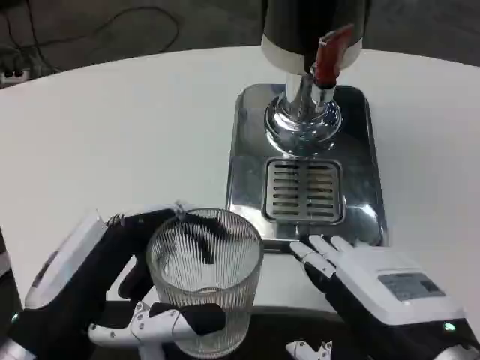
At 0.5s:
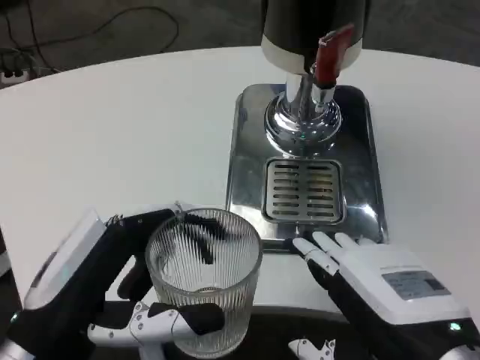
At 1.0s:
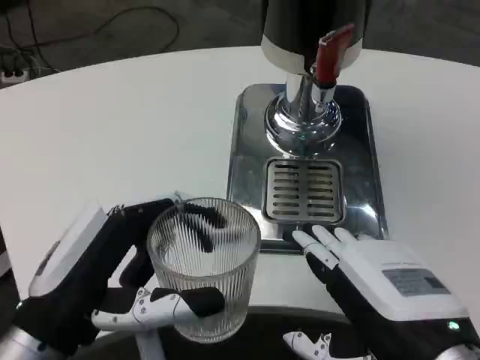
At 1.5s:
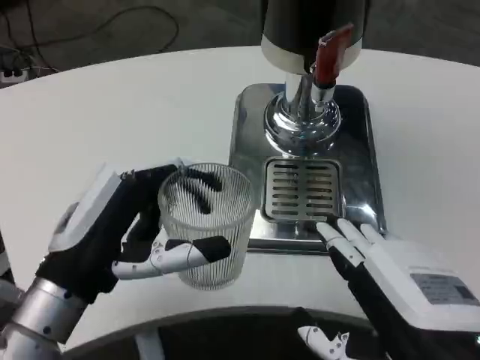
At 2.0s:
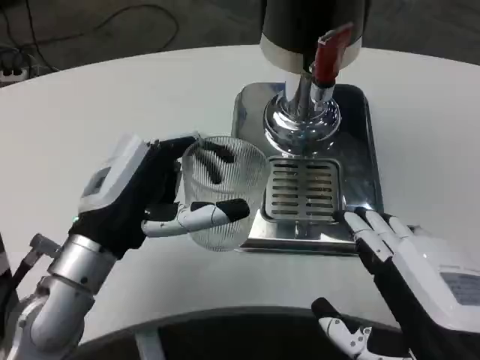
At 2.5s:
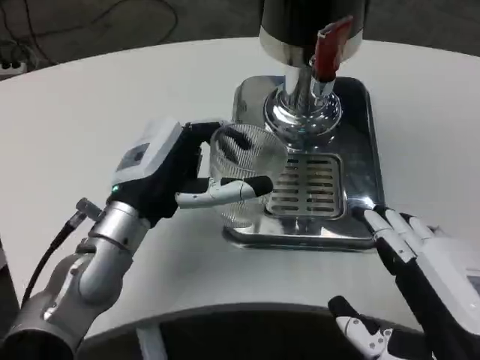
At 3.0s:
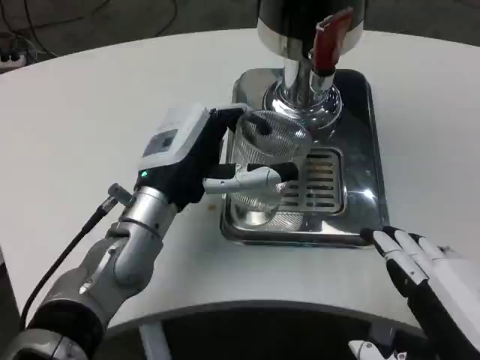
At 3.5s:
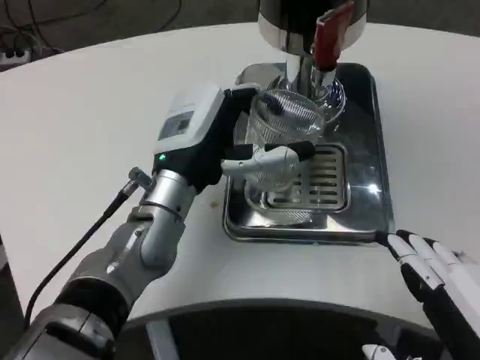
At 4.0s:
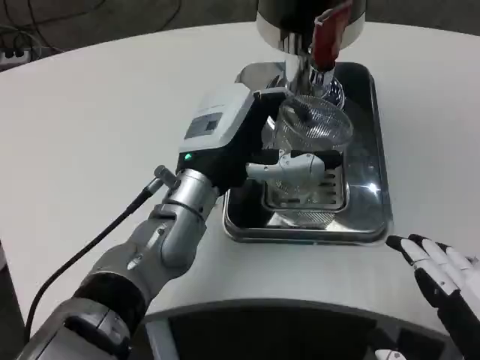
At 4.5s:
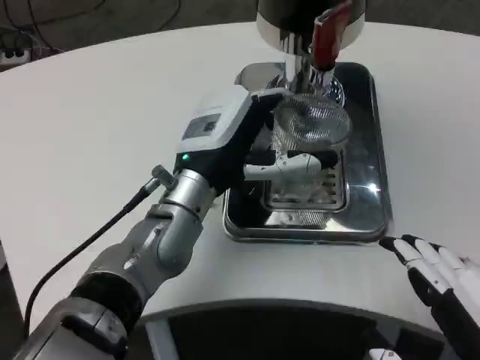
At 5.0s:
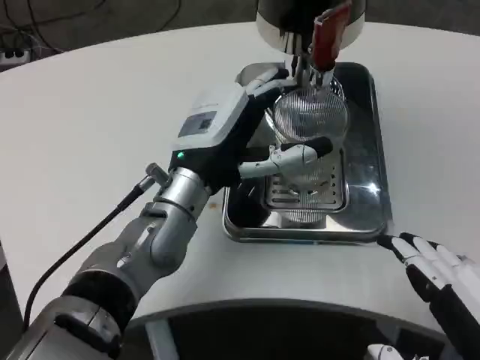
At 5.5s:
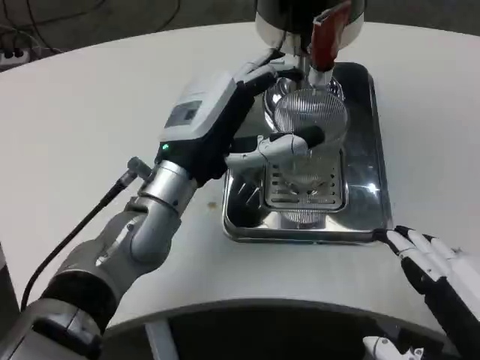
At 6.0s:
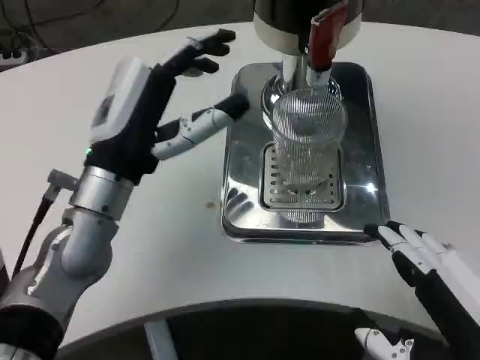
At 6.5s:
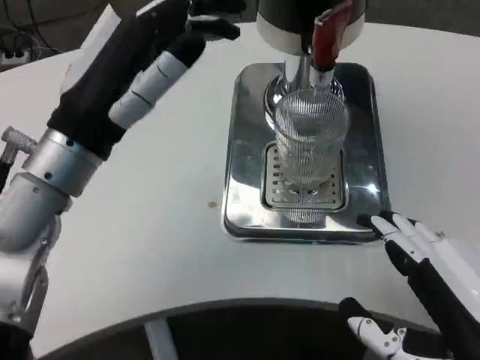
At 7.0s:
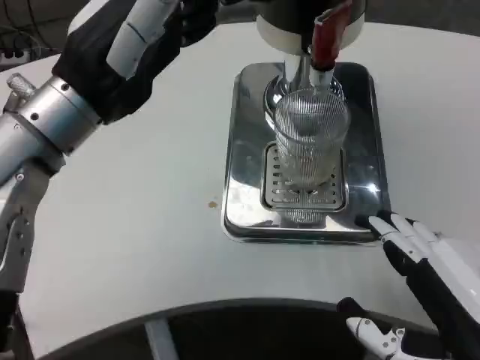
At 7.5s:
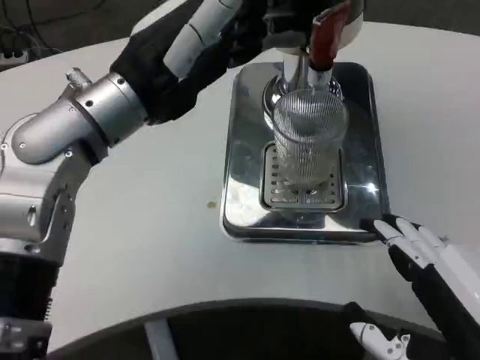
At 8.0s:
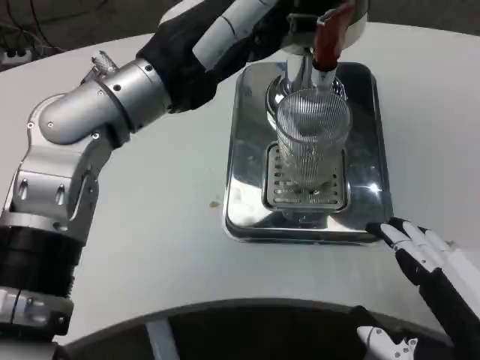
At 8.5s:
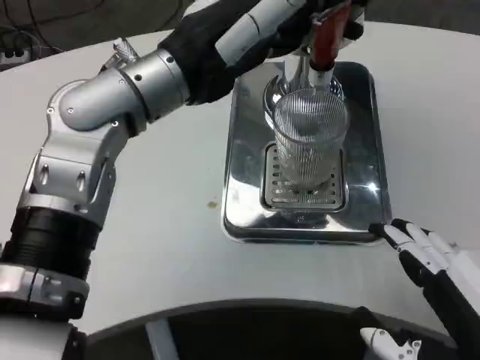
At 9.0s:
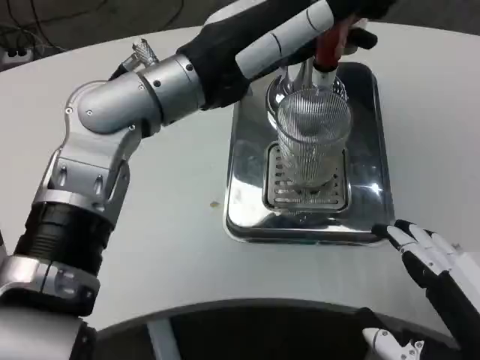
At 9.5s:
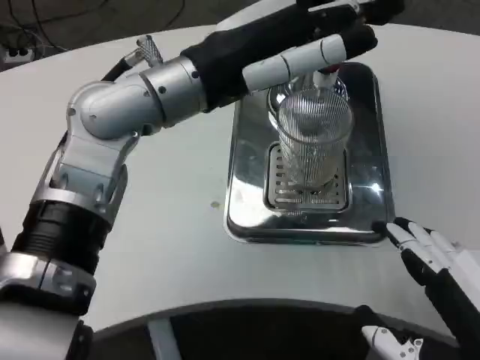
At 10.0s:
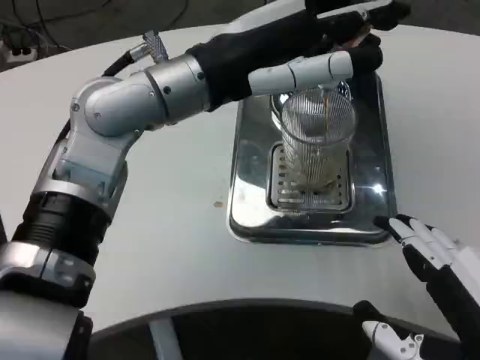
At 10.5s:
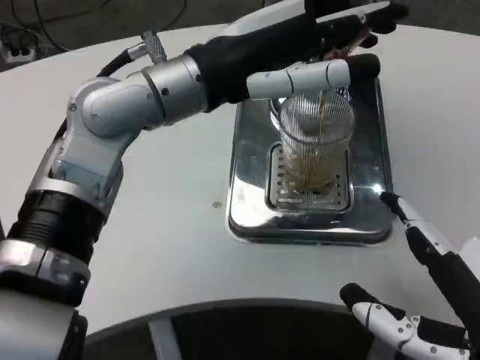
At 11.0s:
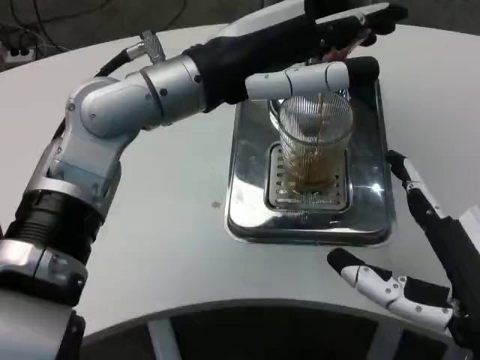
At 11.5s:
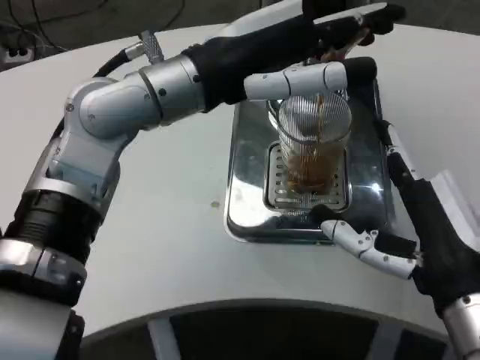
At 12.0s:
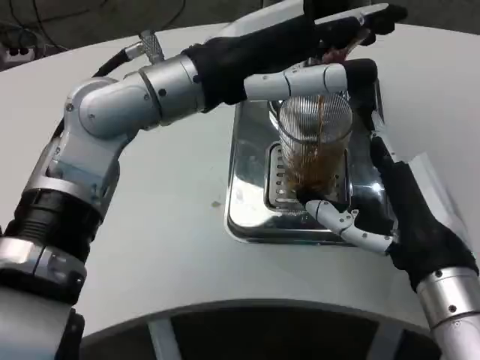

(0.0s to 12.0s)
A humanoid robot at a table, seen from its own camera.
Task of the whole recording: Grasp the cup under the faucet to collect the drink, then remove the cup.
0.0s - 2.0s: The left hand is displaced forward by some 10 cm.
2.0s - 4.0s: The left hand travels to the right and forward by approximately 10 cm.
4.0s - 6.0s: The left hand travels to the left by about 10 cm.
6.0s - 8.0s: The left hand goes about 10 cm upward.
10.0s - 12.0s: The right hand goes approximately 10 cm forward.

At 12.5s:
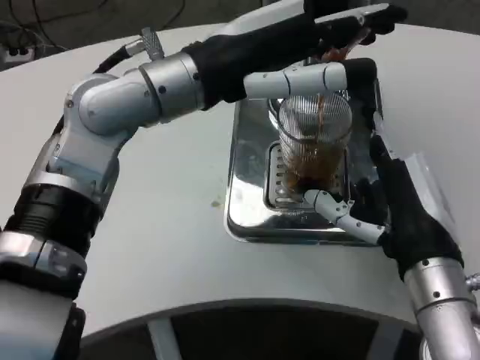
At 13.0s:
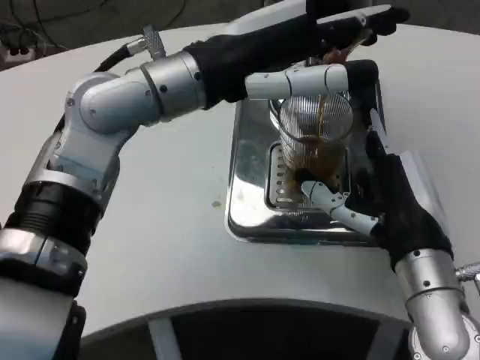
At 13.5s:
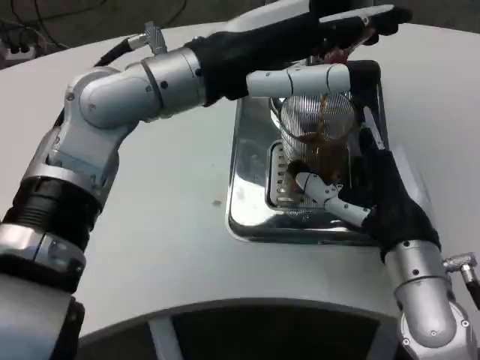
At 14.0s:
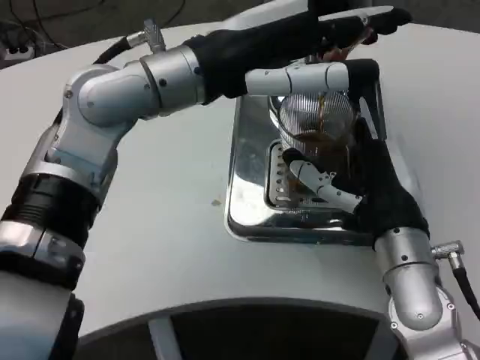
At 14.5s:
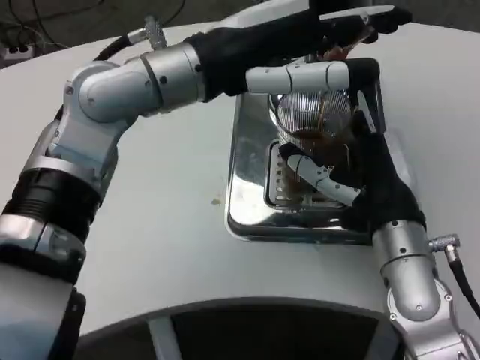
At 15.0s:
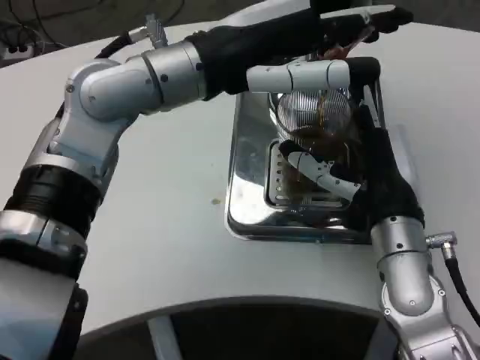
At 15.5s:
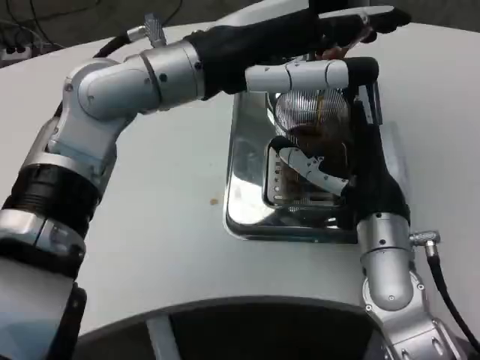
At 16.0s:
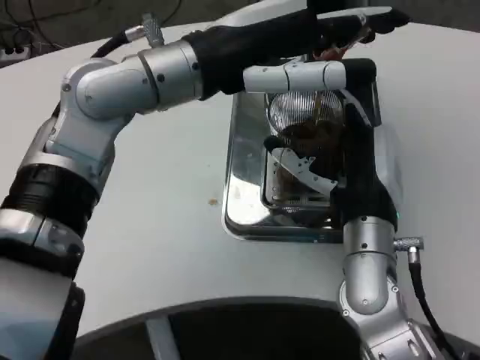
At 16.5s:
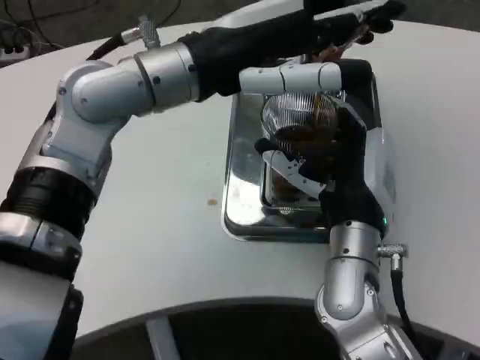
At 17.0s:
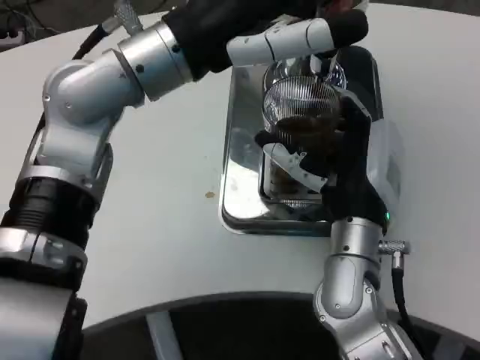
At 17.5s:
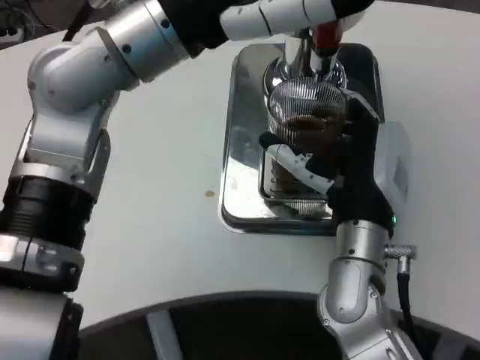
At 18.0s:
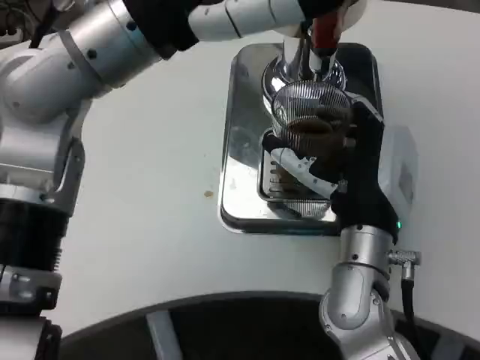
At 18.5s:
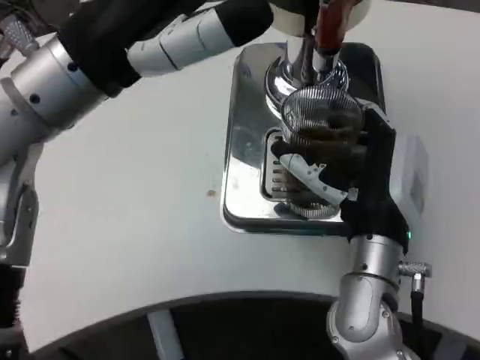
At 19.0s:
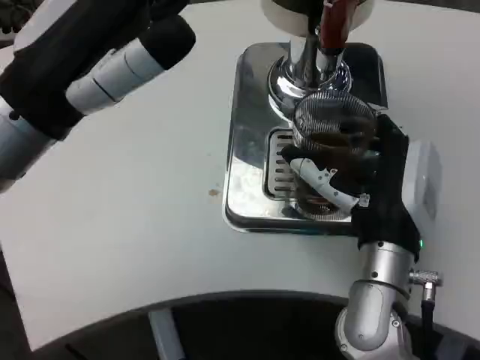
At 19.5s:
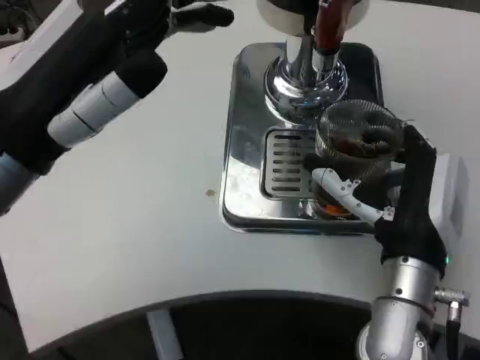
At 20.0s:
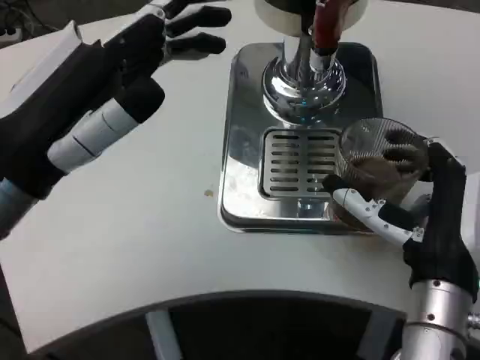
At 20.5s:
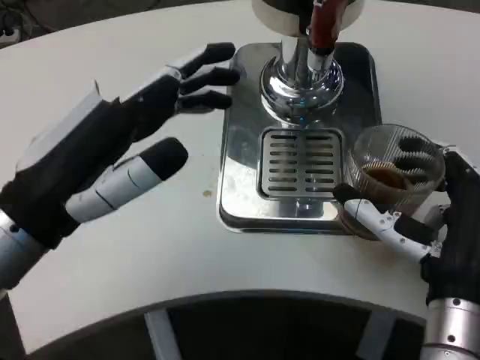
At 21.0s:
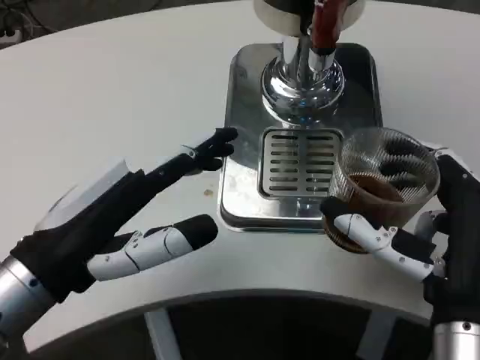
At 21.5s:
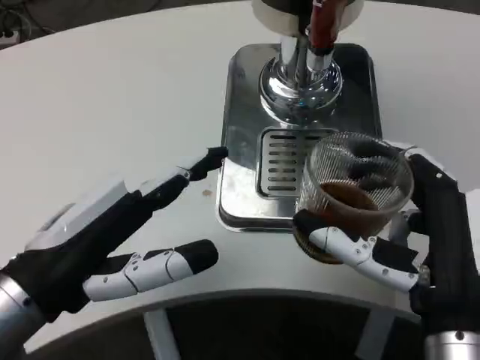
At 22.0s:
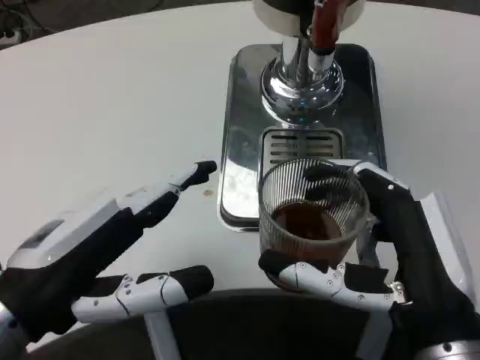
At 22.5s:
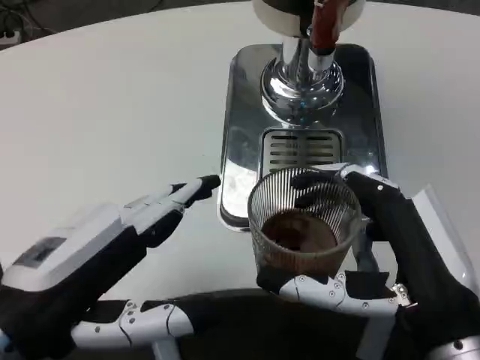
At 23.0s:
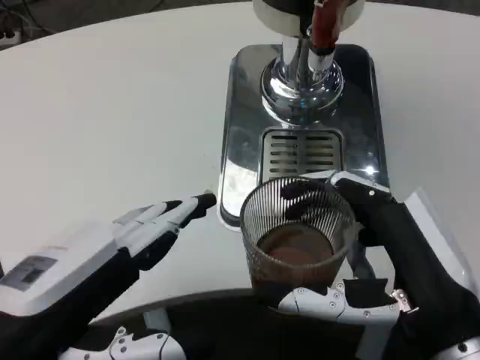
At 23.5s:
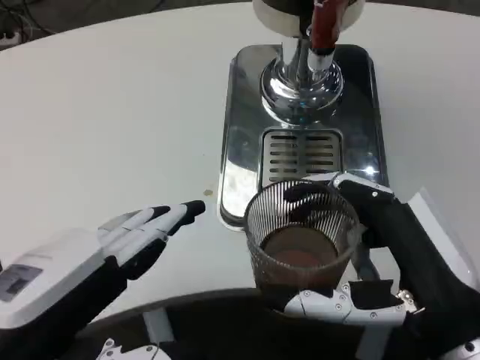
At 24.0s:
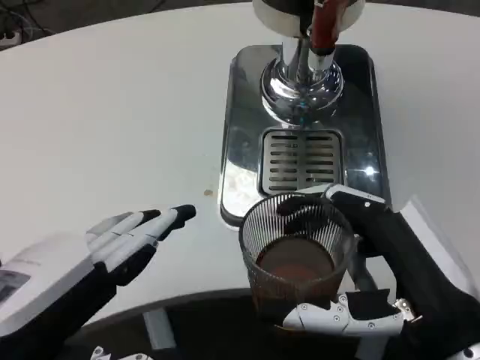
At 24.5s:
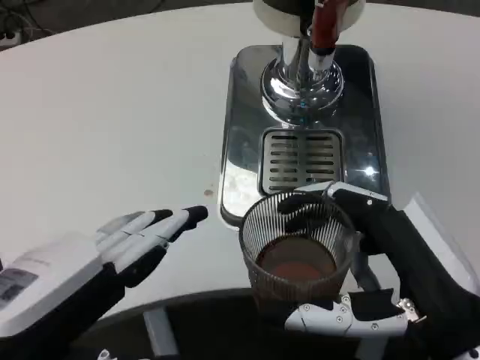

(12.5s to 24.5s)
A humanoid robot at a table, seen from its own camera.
Task of the whole recording: Grasp the cup under the faucet to collect the drink, then remove the cup.
12.5s - 14.5s: The right hand shifts approximately 5 cm forward.
14.5s - 16.5s: The right hand moves to the left, some 5 cm.
16.5s - 18.5s: The left hand is displaced backward and to the left by about 10 cm.
18.5s - 20.5s: The left hand shifts approximately 10 cm downward and backward, while the right hand is displaced backward by roughly 5 cm.
20.5s - 22.5s: The hands both shift backward by approximately 5 cm.

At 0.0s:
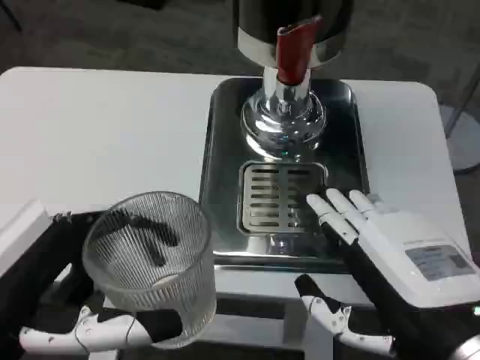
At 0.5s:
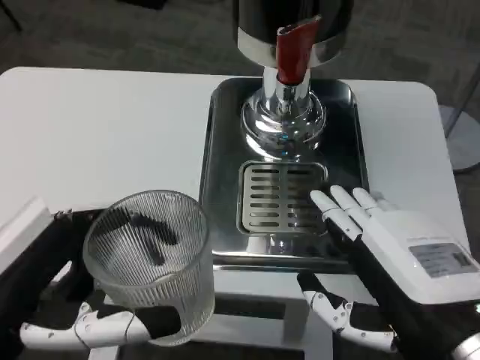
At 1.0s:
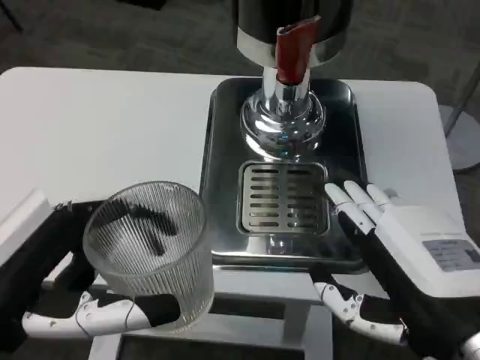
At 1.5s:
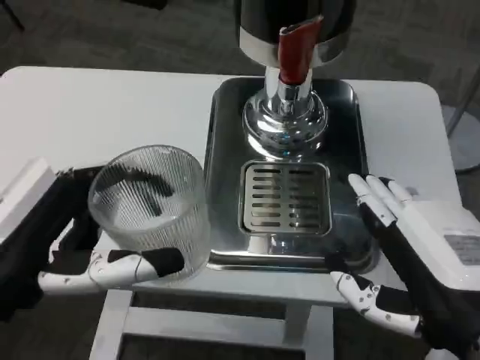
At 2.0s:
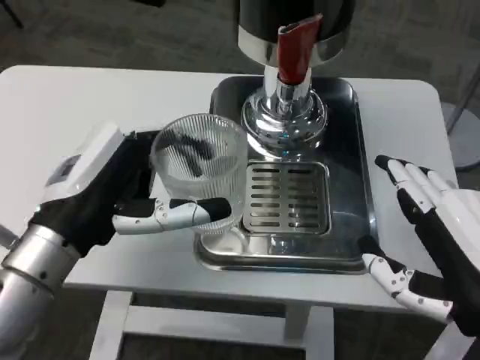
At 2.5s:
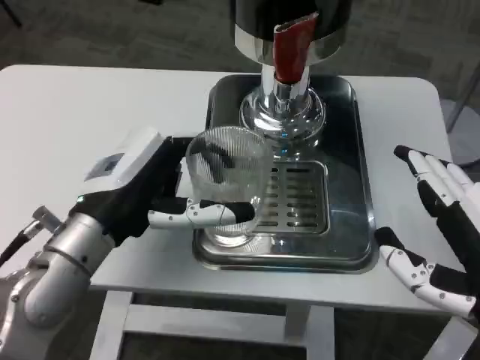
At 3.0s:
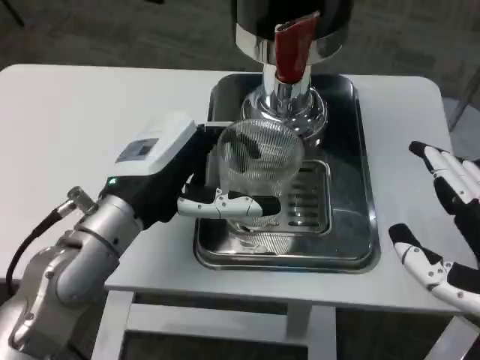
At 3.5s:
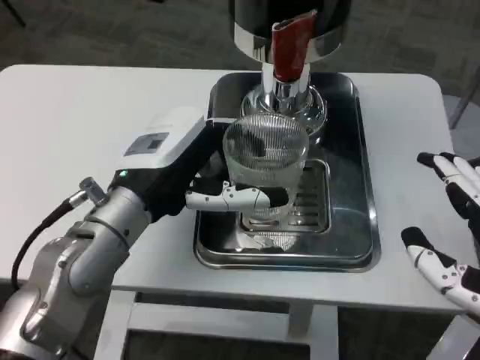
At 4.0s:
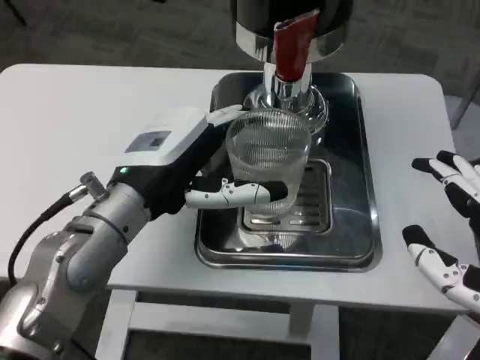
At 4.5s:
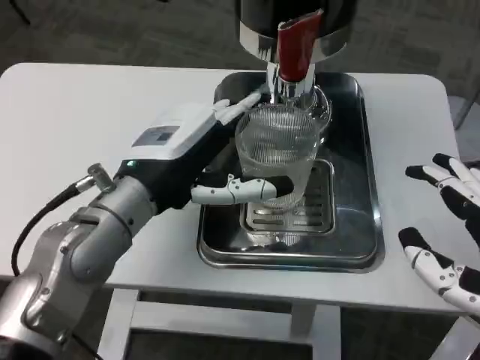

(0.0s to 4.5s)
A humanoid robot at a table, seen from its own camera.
Task of the whole recording: Grasp the cup under the faucet to collect the drink, then remove the cup.
0.0s - 2.0s: The left hand travels forward by some 10 cm.
2.0s - 4.5s: The left hand goes roughly 5 cm forward and to the right.
